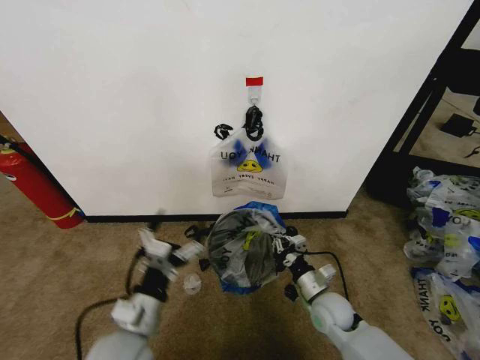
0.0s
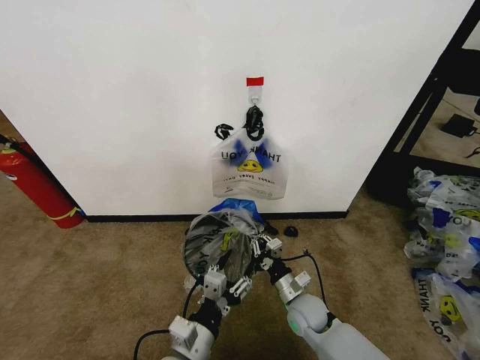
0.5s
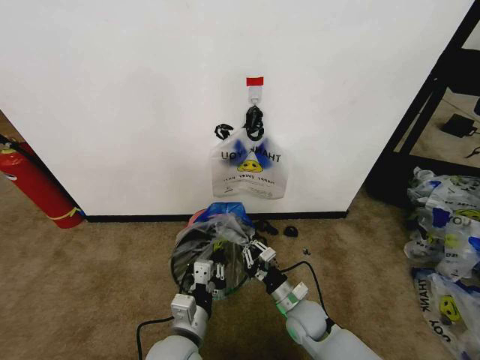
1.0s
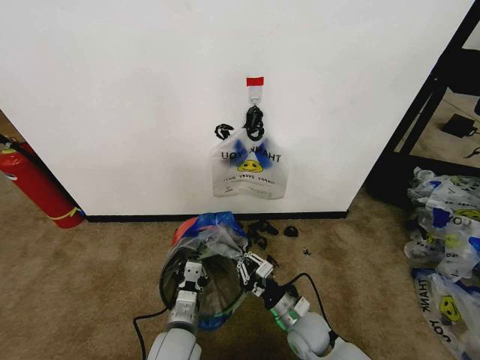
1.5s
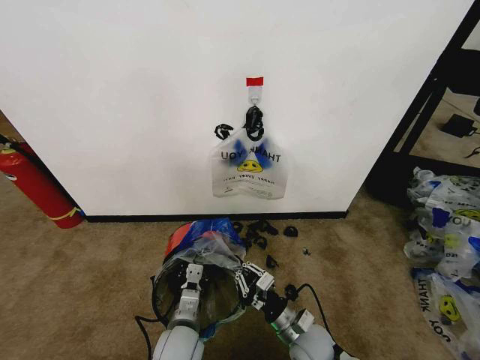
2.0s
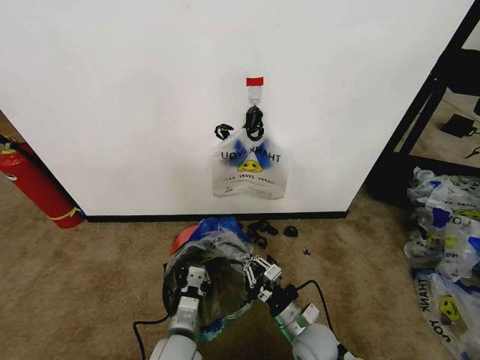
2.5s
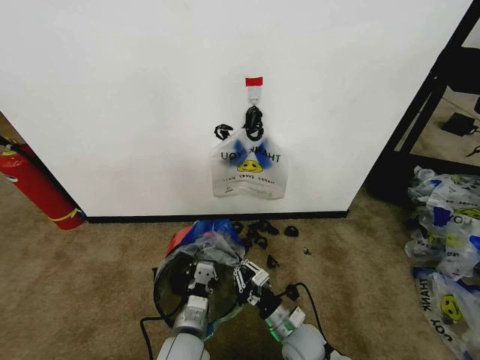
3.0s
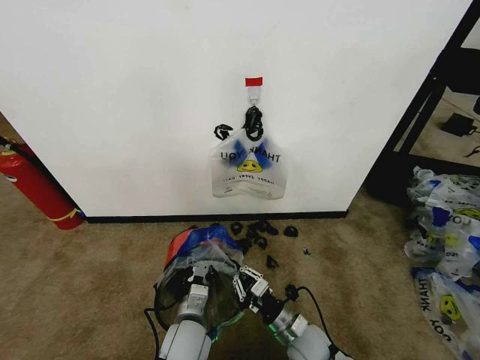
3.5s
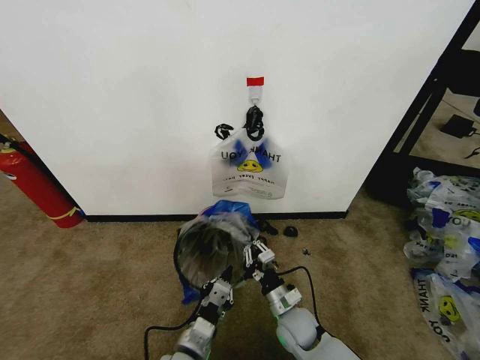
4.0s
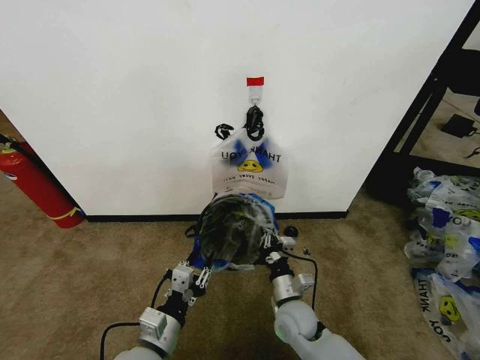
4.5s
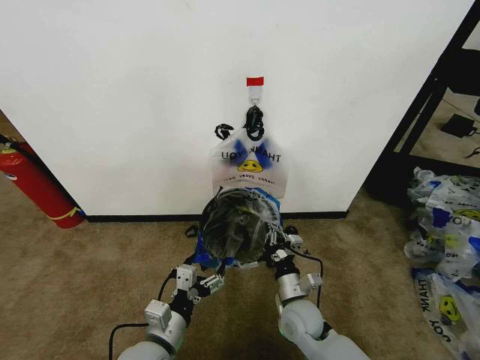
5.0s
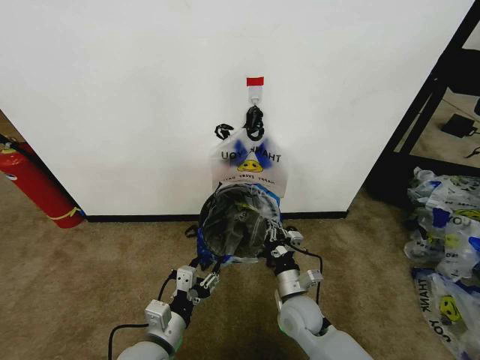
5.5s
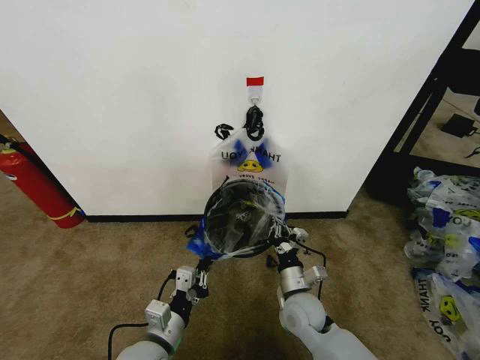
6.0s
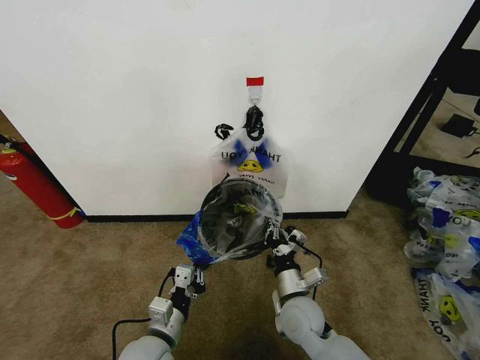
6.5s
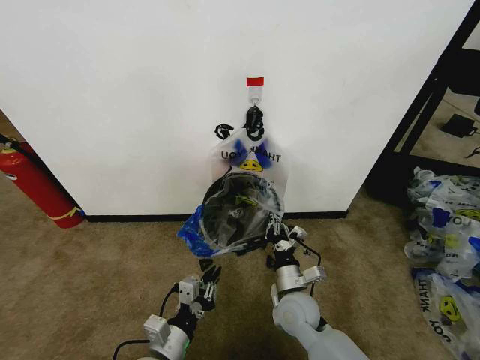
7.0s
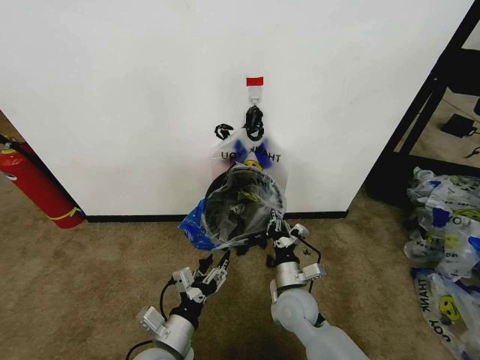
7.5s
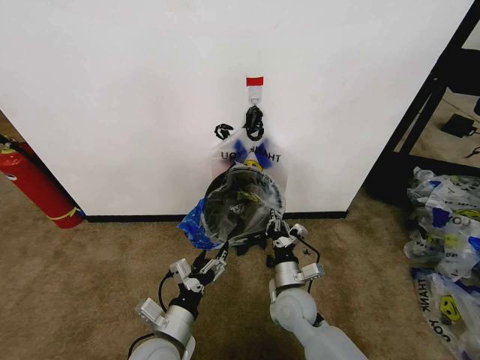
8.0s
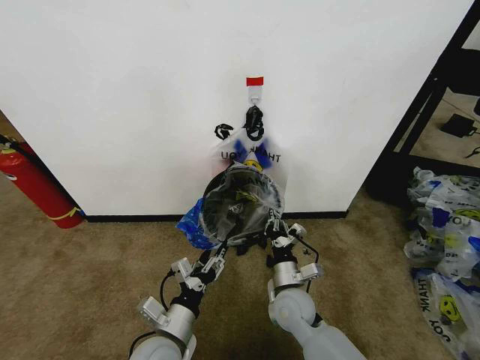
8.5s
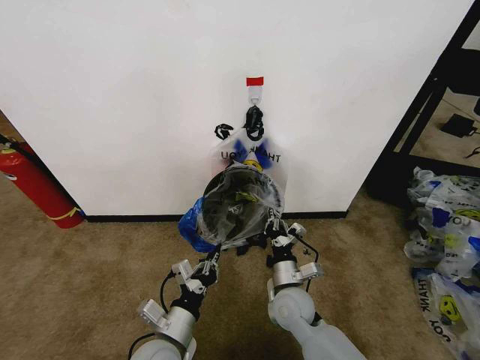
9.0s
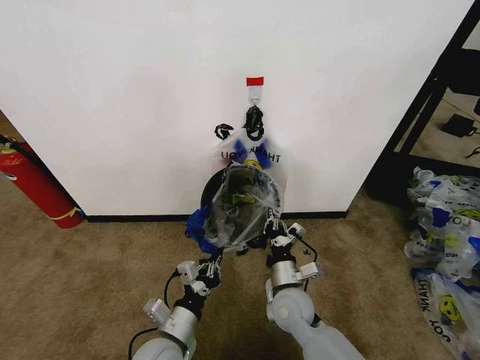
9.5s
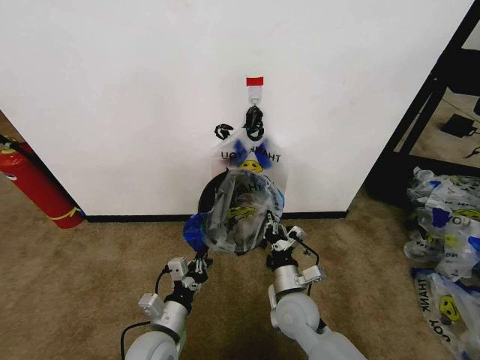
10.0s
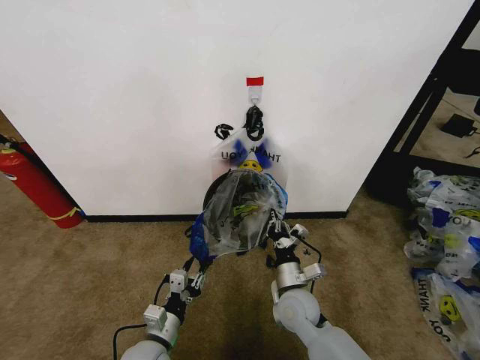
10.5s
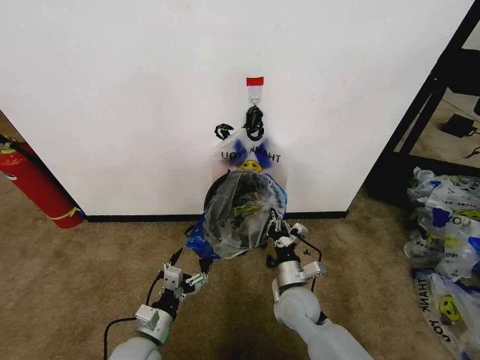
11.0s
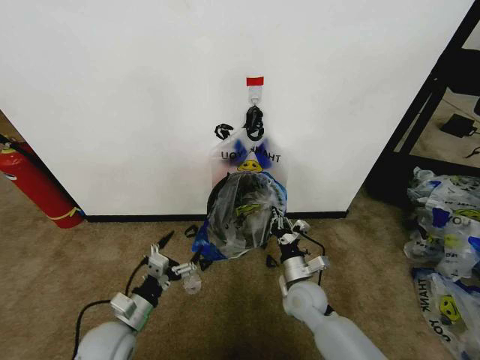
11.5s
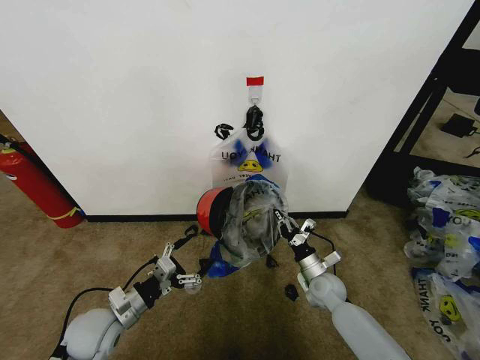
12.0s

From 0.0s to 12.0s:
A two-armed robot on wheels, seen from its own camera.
Task of the whole recording: Pick up the garbage bag from the wall and place it over the trash bin.
From 0.0s to 2.0s: The right gripper is displaced backward and to the left by roughly 10 cm, while the left gripper is displaced downward and to the right by some 15 cm, and closes.
From 2.0s to 4.0s: The left gripper is displaced backward by some 5 cm. Meanwhile the right gripper shifts by approximately 5 cm.
From 4.0s to 6.0s: The left gripper heads to the left, covering roughly 5 cm, and opens, then closes once more; the right gripper shifts approximately 5 cm upward.
From 6.0s to 8.0s: The left gripper opens its fingers.
From 8.0s to 10.0s: The left gripper closes up.
From 10.0s to 12.0s: The right gripper is displaced to the right, forward and downward by some 15 cm. Meanwhile the left gripper goes some 15 cm to the left, and opens up.

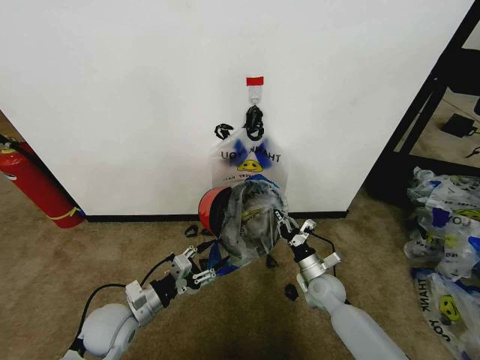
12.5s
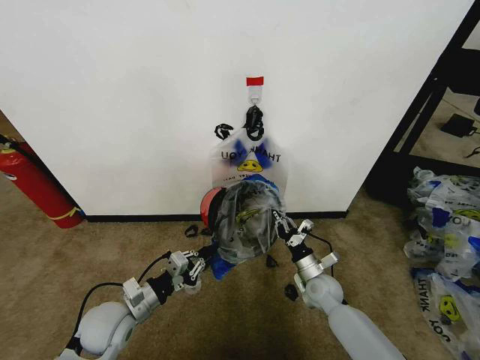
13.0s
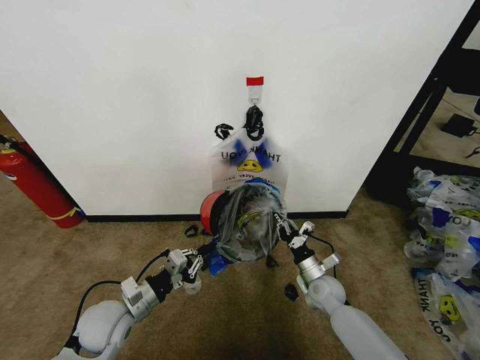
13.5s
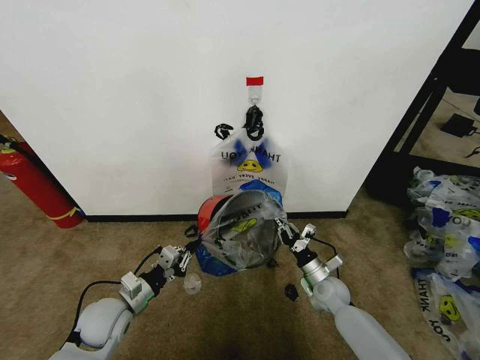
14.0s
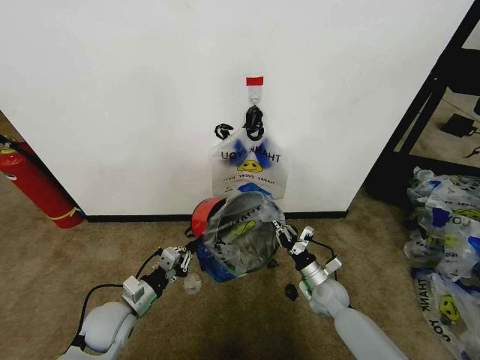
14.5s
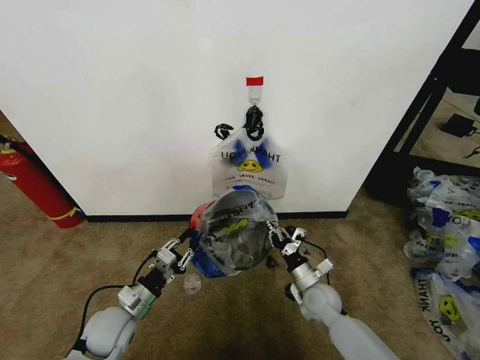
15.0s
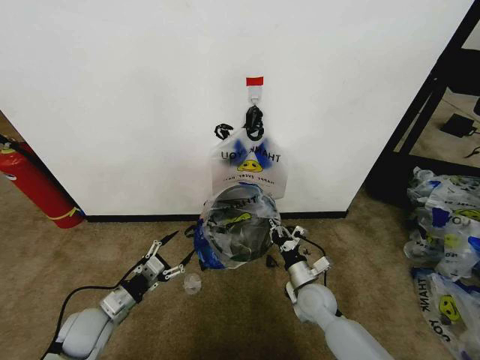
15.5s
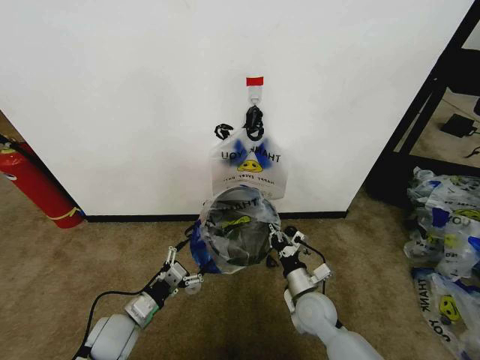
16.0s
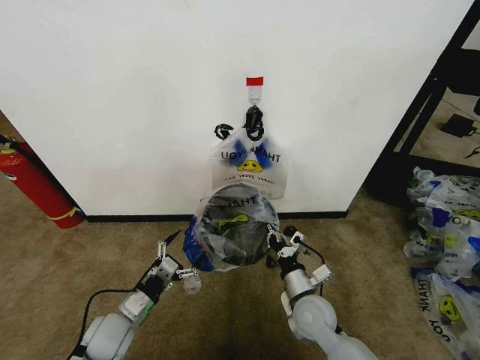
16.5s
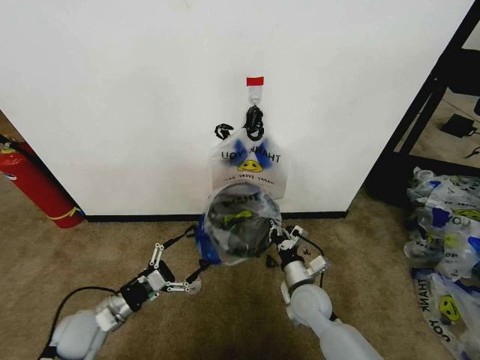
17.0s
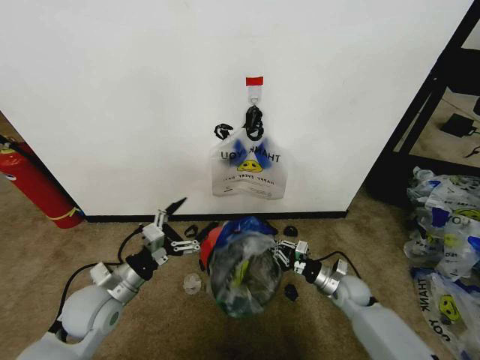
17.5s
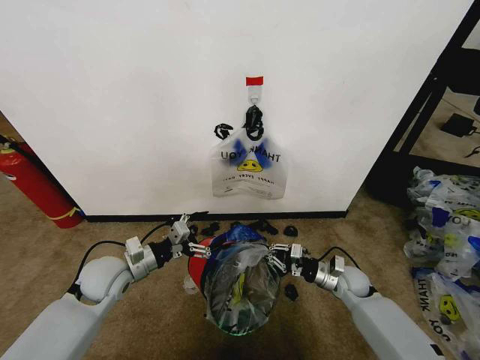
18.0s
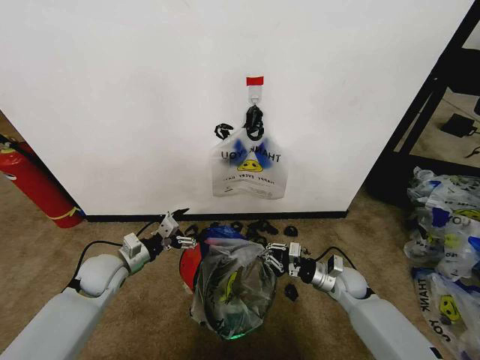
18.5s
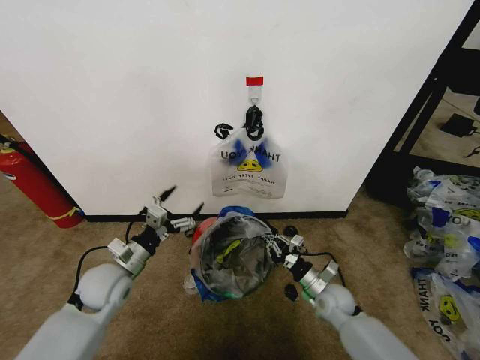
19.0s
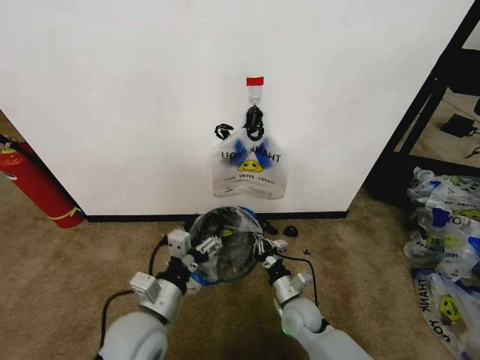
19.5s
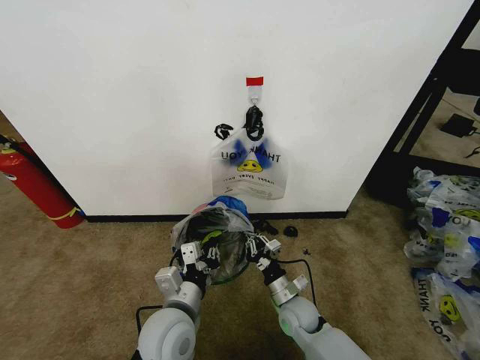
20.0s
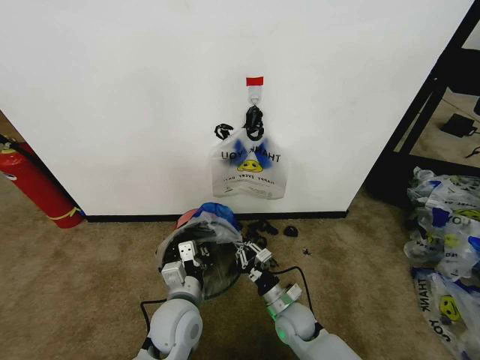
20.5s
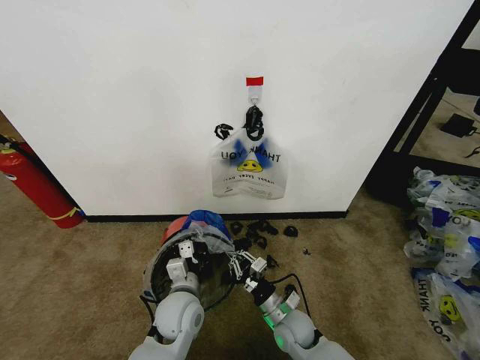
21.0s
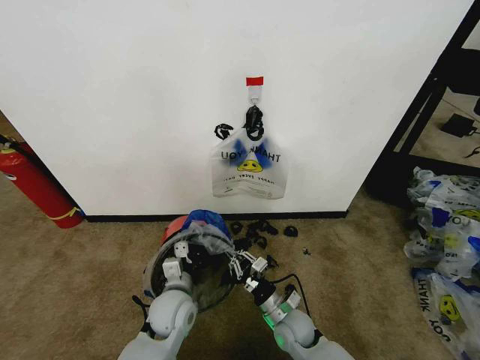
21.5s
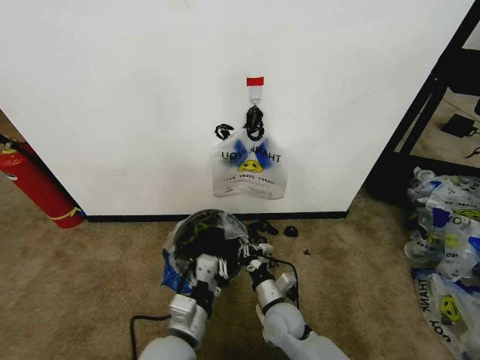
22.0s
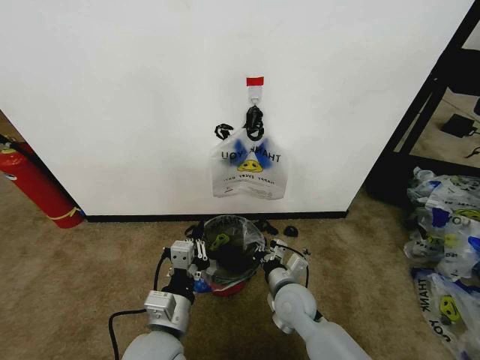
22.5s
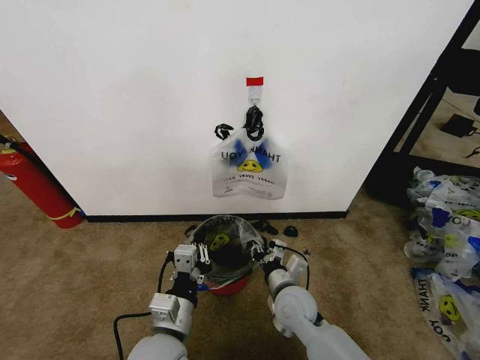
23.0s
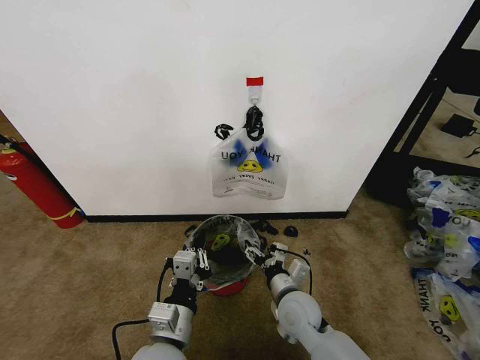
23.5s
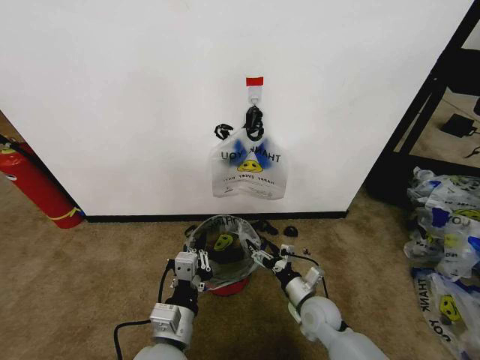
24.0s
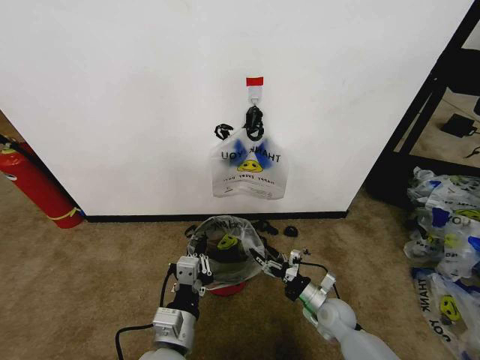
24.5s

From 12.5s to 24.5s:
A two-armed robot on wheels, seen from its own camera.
Task of the whole recording: Pick up the garbage bag from the wall and place it over the trash bin.
From 12.5s to 14.5s: The left gripper closes.
From 14.5s to 16.5s: The left gripper opens up; the right gripper travels upward, to the left and backward by about 15 cm.
From 16.5s to 18.5s: The left gripper goes some 15 cm forward and upward; the right gripper heads to the right and forward, covering approximately 15 cm.
From 18.5s to 20.5s: The left gripper travels to the right and backward by roughly 25 cm, and closes; the right gripper goes approximately 15 cm to the left and backward.
From 20.5s to 22.5s: The left gripper is displaced backward by approximately 5 cm; the right gripper moves upward, some 10 cm.
From 22.5s to 24.5s: The right gripper heads to the right and downward, covering approximately 15 cm, and opens.

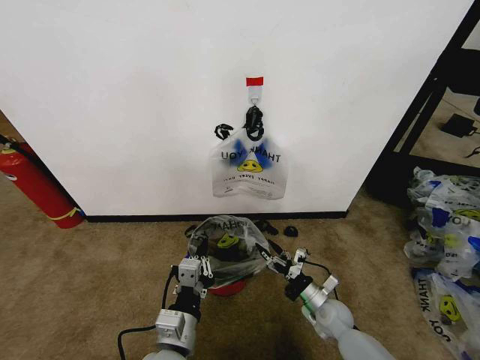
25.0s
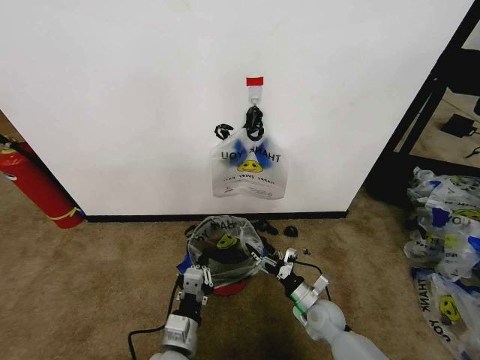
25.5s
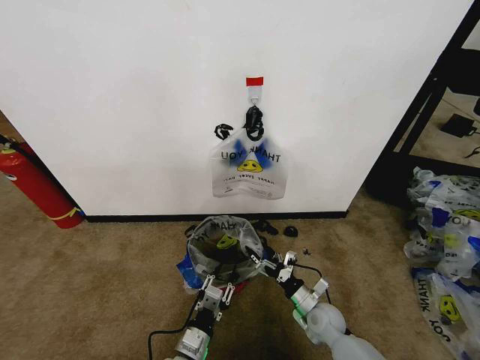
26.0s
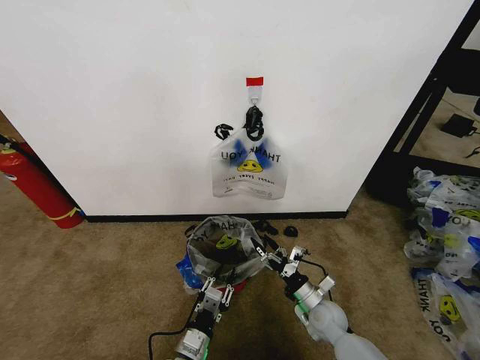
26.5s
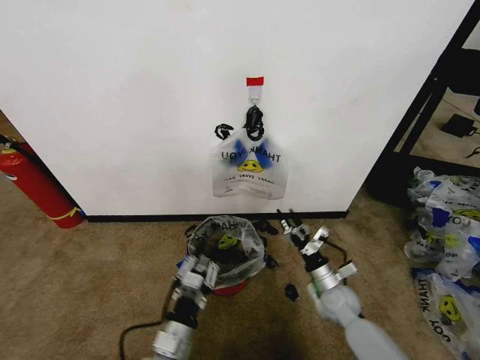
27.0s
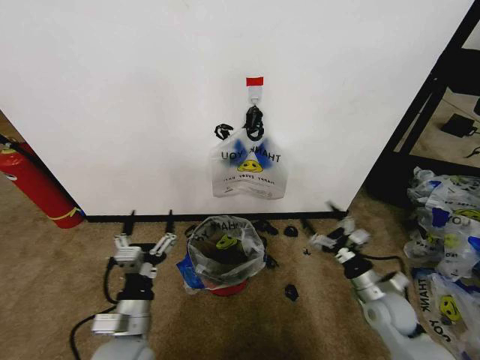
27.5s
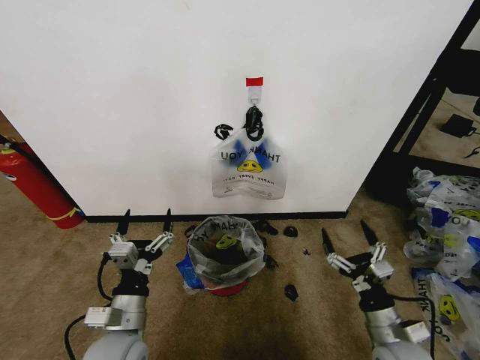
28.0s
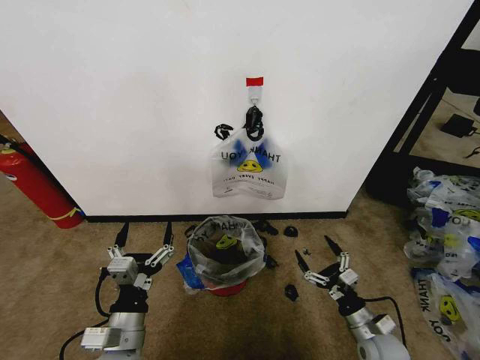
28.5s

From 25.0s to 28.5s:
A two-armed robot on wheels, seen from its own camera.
Task of the whole recording: Pick up the garbage bag from the wall and place it over the trash bin.
From 25.0s to 27.0s: The left gripper goes approximately 5 cm downward, while the right gripper is displaced upward by approximately 5 cm.
From 27.0s to 28.5s: The right gripper travels backward and to the right by approximately 15 cm. Meanwhile the left gripper goes some 10 cm to the left and upward, and opens its fingers.
